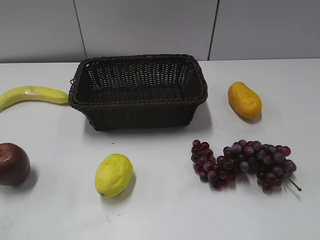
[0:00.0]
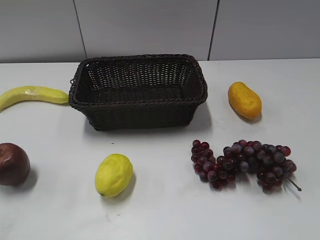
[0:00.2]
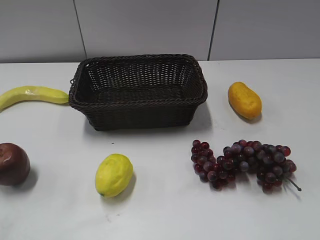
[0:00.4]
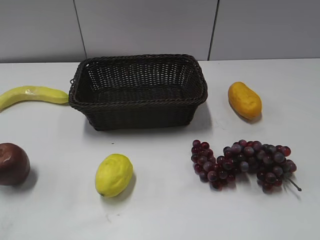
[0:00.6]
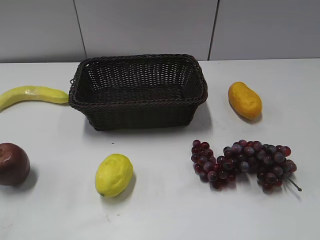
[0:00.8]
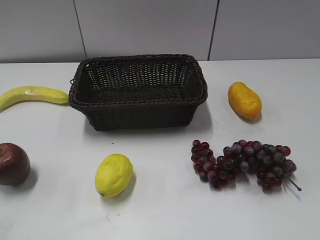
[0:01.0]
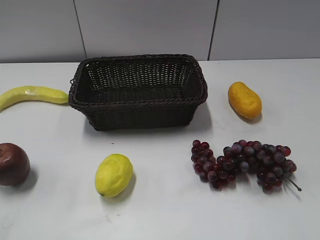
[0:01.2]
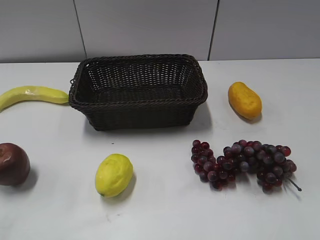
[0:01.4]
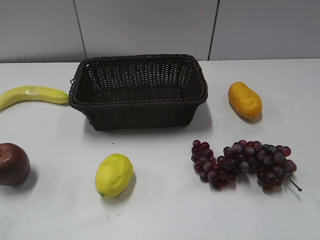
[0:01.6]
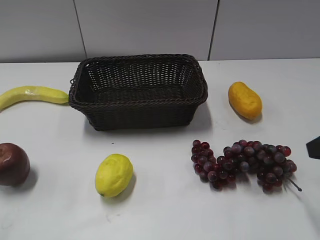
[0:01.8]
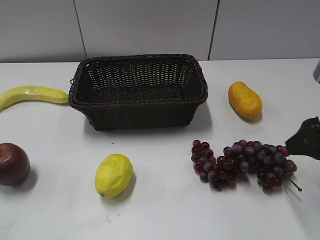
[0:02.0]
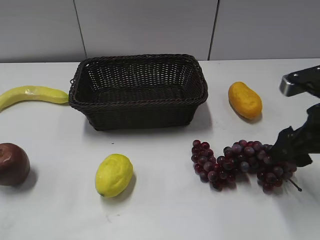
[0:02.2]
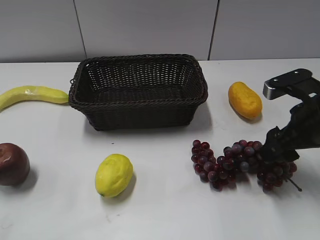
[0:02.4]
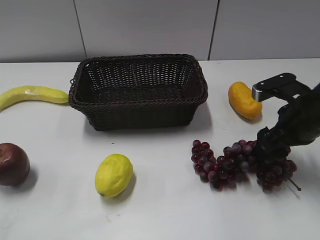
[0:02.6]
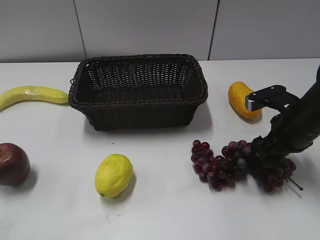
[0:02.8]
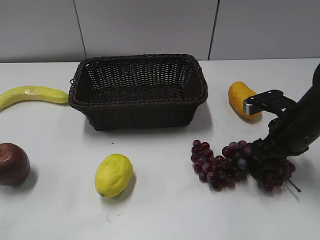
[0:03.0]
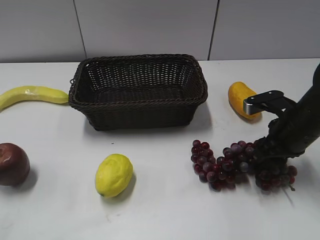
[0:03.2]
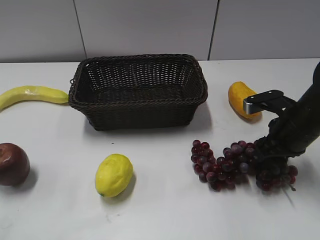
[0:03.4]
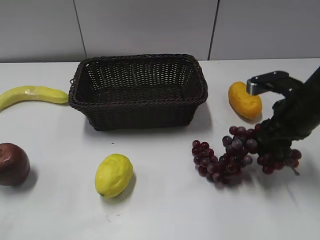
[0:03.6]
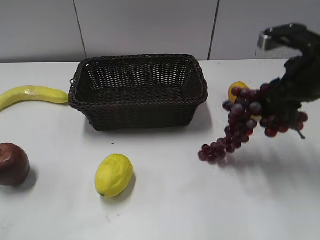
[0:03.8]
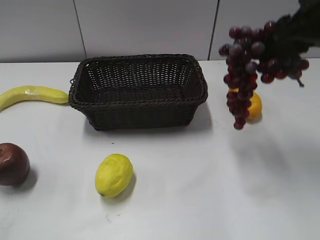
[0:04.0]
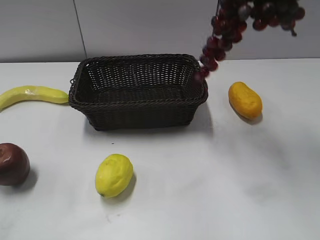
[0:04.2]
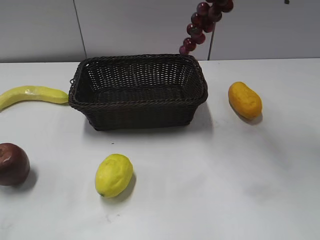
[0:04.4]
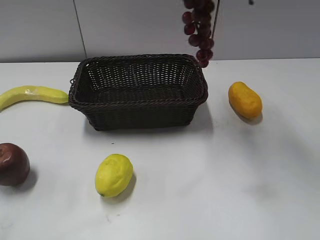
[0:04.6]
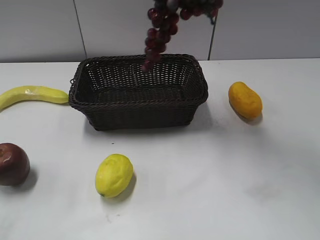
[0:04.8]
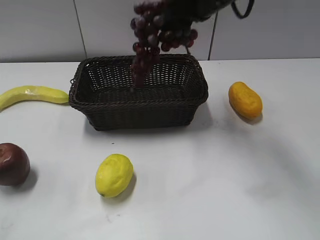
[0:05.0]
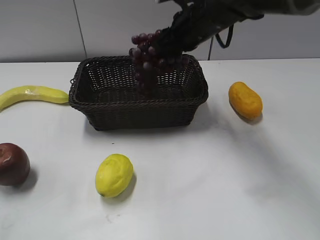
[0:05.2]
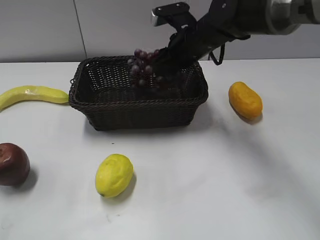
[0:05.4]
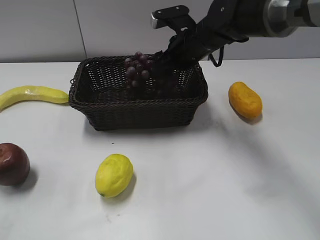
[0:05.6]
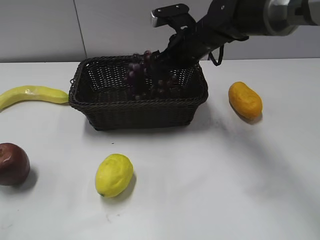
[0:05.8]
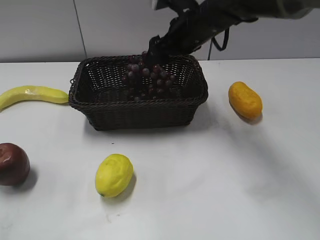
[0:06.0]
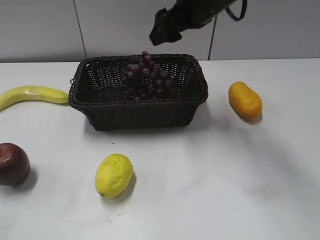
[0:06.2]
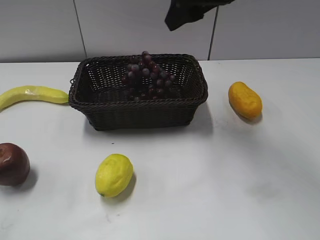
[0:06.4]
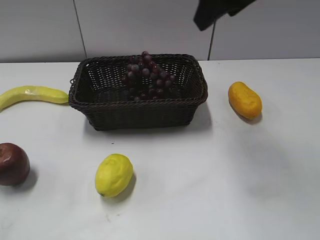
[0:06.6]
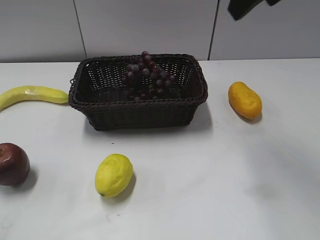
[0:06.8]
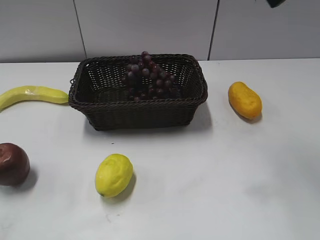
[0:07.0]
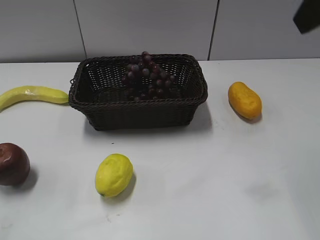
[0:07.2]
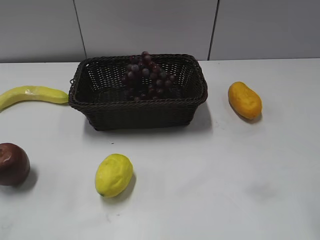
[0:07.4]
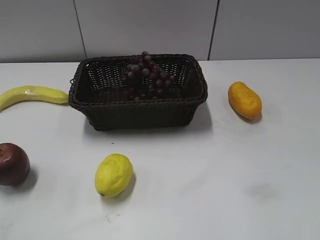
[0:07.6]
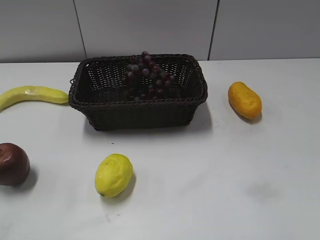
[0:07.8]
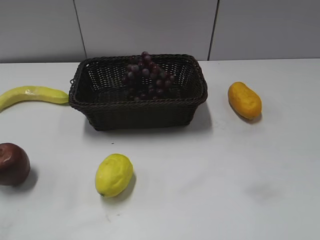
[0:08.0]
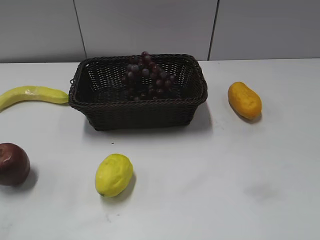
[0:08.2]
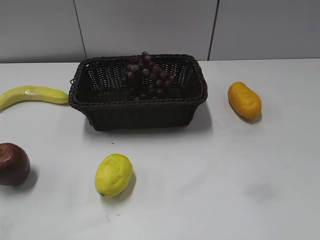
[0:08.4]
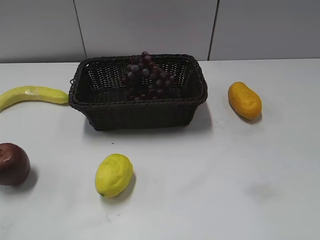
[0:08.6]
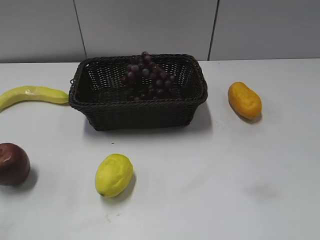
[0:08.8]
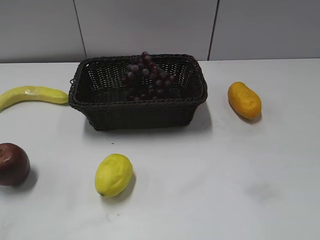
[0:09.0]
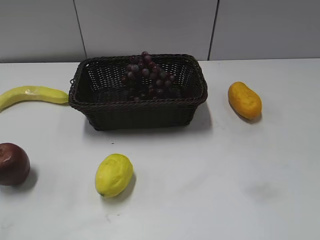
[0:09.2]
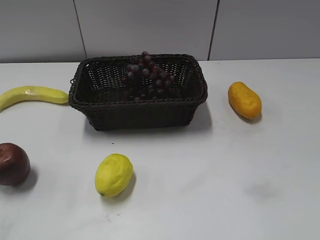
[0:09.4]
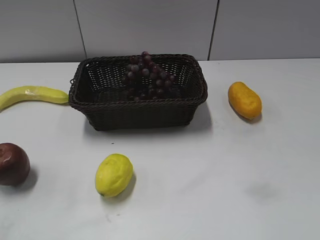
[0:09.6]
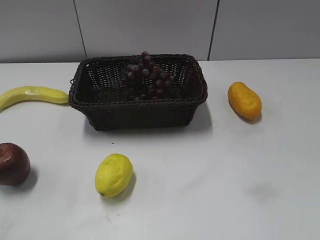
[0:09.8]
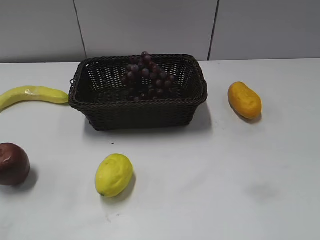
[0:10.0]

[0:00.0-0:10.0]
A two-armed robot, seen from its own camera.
0:01.4 to 0:02.8: The right gripper travels forward and downward by approximately 25 cm.
0:02.8 to 0:04.2: The right gripper shifts some 25 cm upward, and closes up.
0:04.2 to 0:05.8: The right gripper goes about 25 cm downward, to the left and forward, and opens up.
0:05.8 to 0:07.2: The right gripper moves upward, backward and to the right, roughly 35 cm.
0:07.2 to 0:08.6: The right gripper goes roughly 25 cm backward, downward and to the right.
